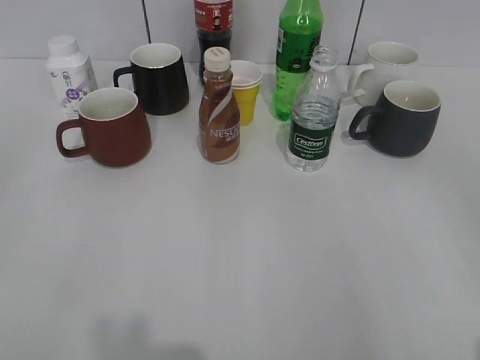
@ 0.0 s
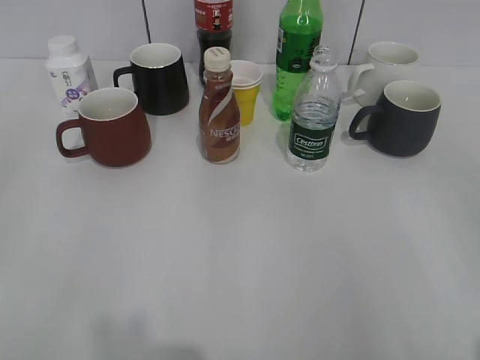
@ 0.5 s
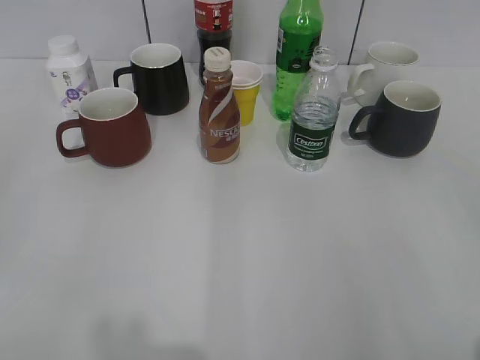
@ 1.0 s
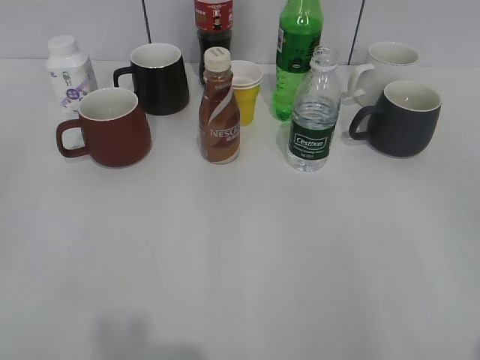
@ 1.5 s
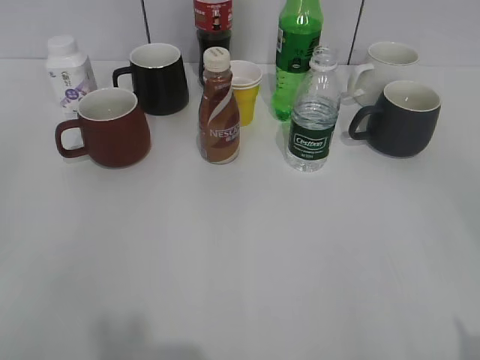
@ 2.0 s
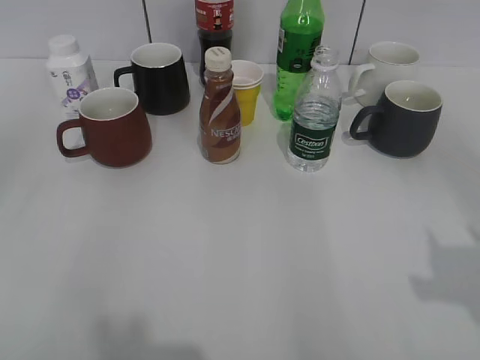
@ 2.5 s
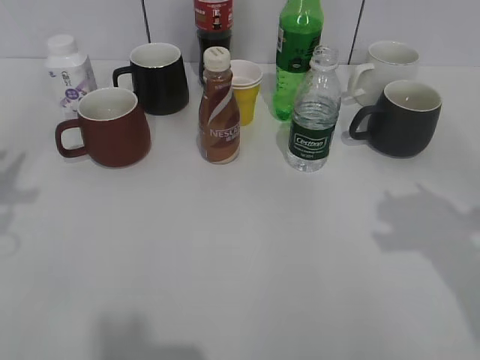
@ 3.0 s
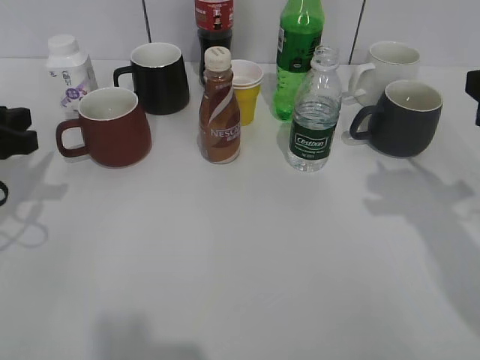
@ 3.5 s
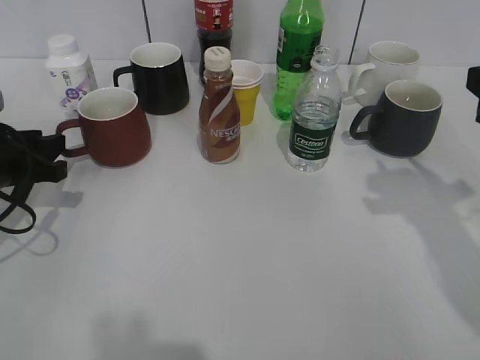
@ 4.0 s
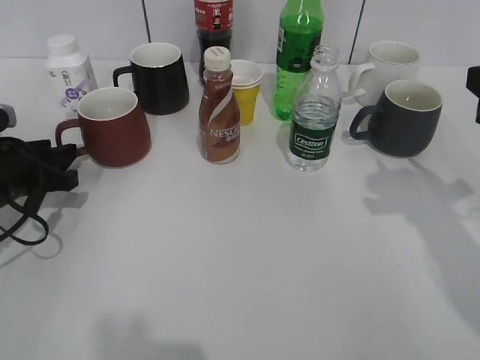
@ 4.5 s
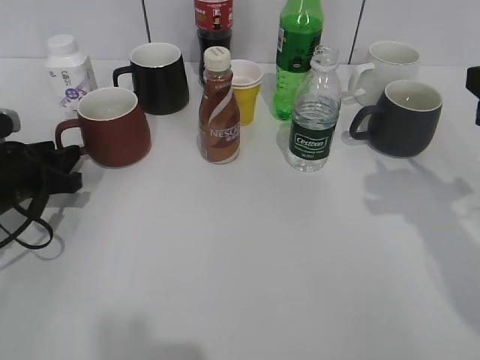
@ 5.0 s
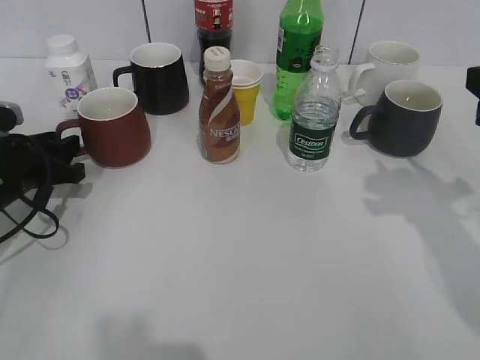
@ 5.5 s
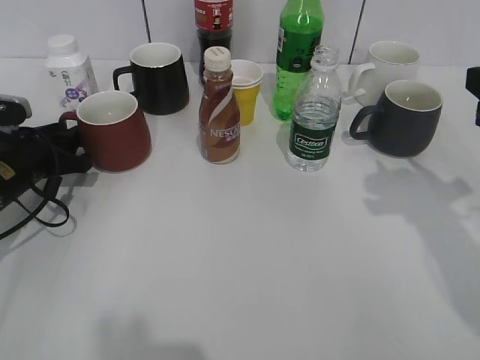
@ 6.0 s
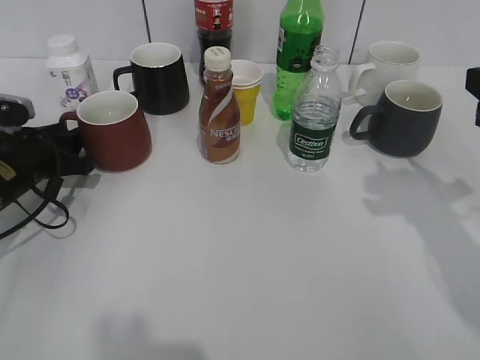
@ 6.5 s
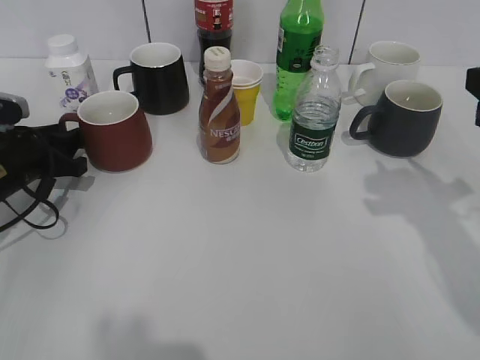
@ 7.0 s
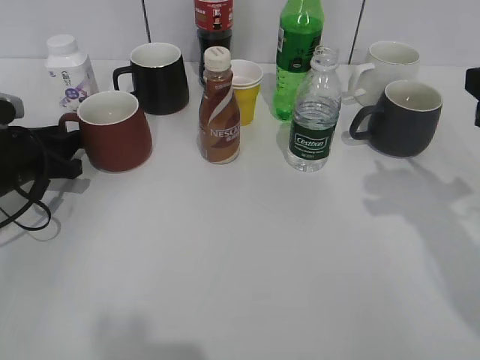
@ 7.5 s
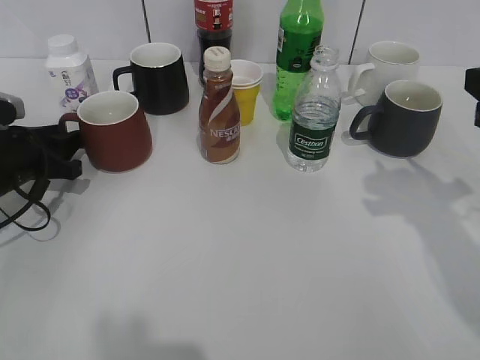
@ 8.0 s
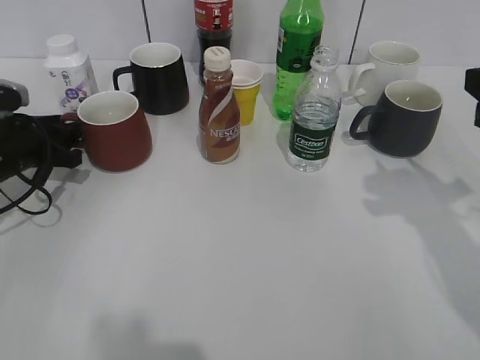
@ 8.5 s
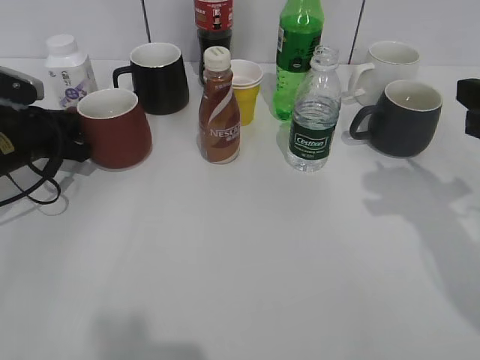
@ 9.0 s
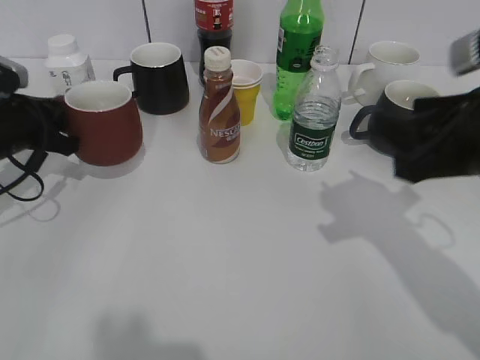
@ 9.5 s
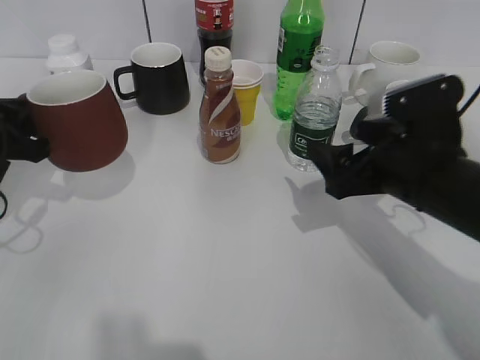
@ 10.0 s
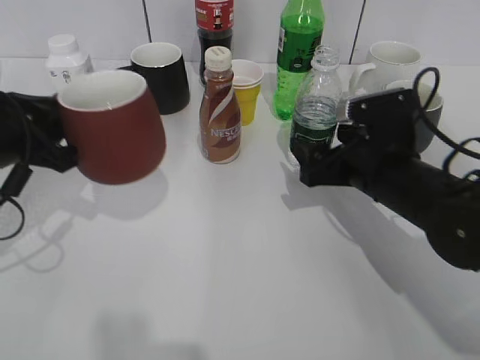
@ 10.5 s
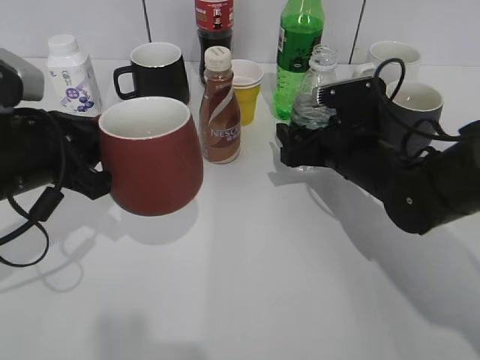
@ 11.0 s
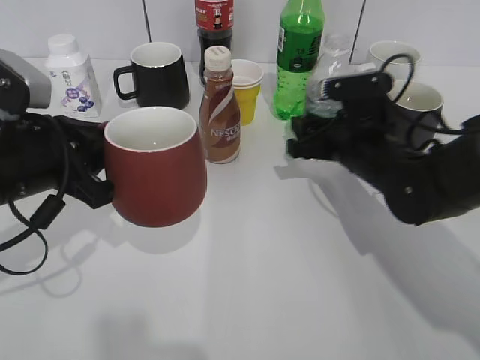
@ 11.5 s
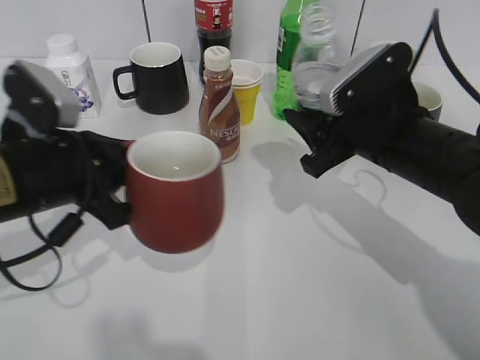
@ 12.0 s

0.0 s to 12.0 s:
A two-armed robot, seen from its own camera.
Step, 2.0 to 9.0 s: Grasp the red cup with left gripper.
Step, 9.5 to 10.0 s: Lift the red cup with left gripper.
Step, 10.5 to 11.0 s: Grasp the bottle with water with right gripper.
2.0 to 4.0 s: The right gripper moves forward, some 20 cm, and closes its fingers, while the left gripper is displaced forward and downward by about 30 cm.
4.0 to 6.0 s: The left gripper shifts by approximately 5 cm.
6.0 to 8.0 s: The grippers make only small movements.
8.0 to 10.0 s: The left gripper shifts approximately 5 cm upward, and closes. The right gripper moves downward and to the left, approximately 15 cm, and opens up.
10.0 to 12.0 s: The right gripper closes up. Meanwhile the left gripper heads to the right, covering about 10 cm.

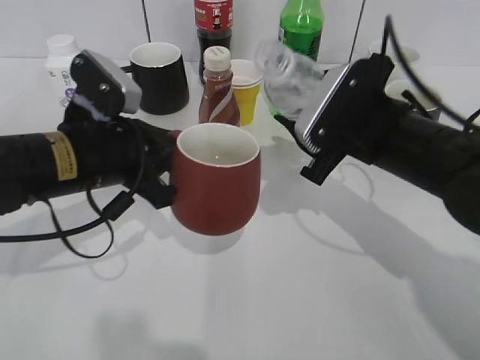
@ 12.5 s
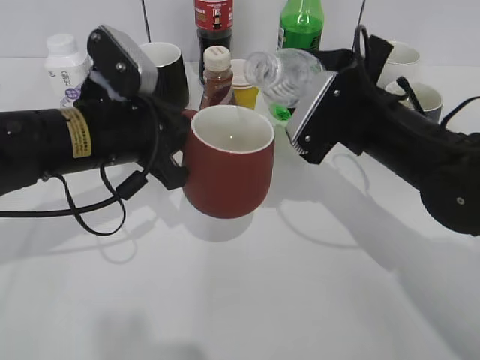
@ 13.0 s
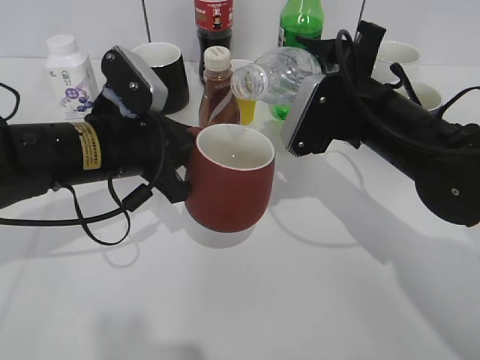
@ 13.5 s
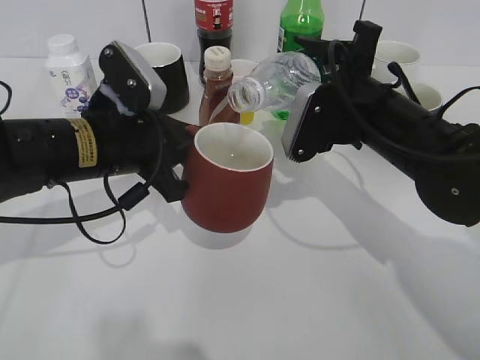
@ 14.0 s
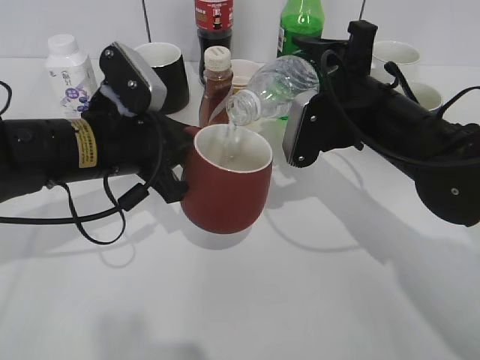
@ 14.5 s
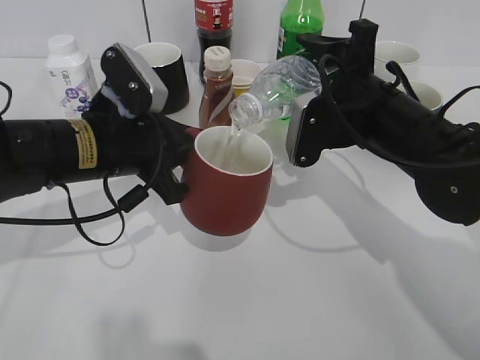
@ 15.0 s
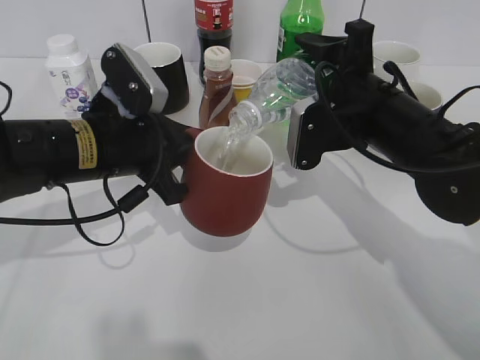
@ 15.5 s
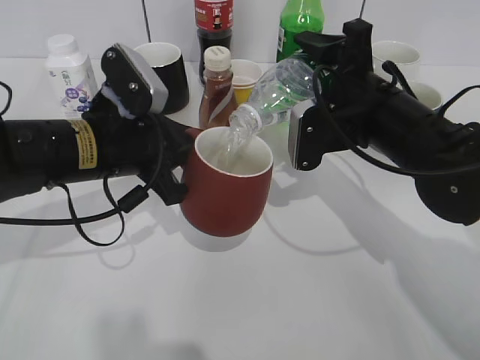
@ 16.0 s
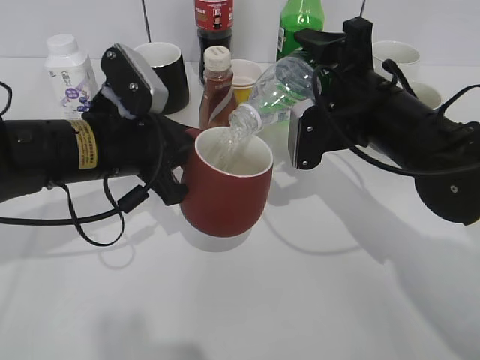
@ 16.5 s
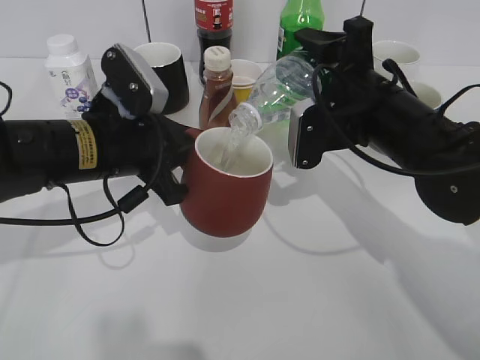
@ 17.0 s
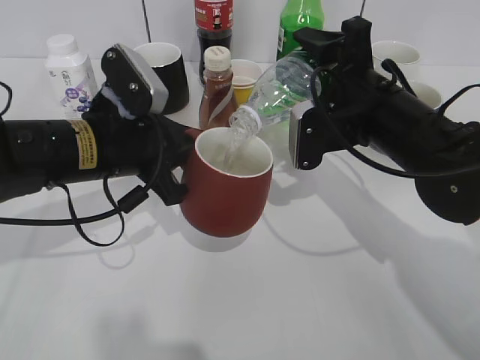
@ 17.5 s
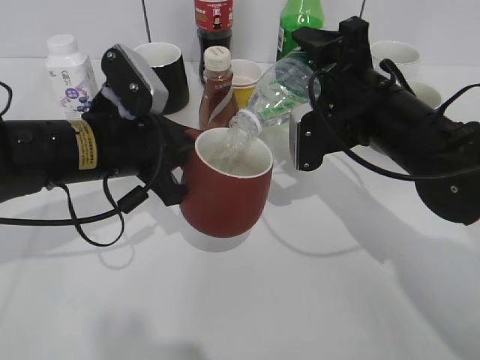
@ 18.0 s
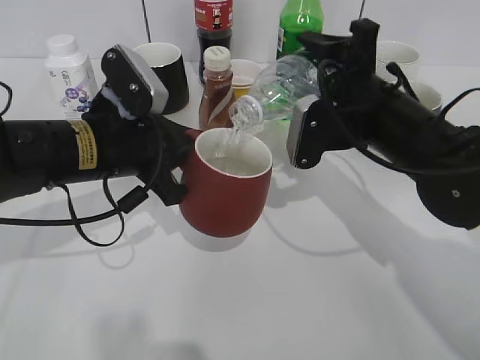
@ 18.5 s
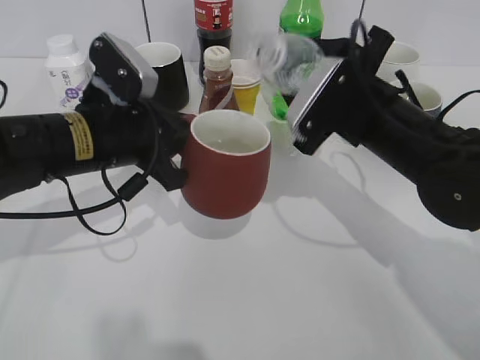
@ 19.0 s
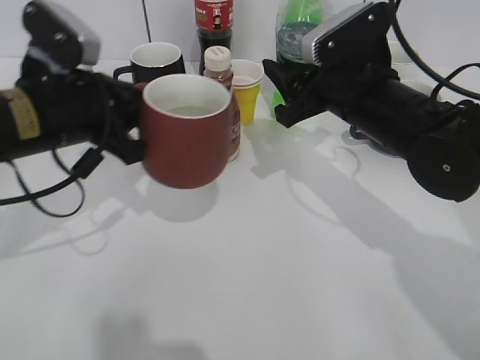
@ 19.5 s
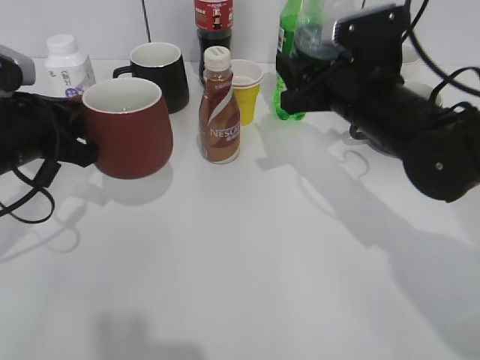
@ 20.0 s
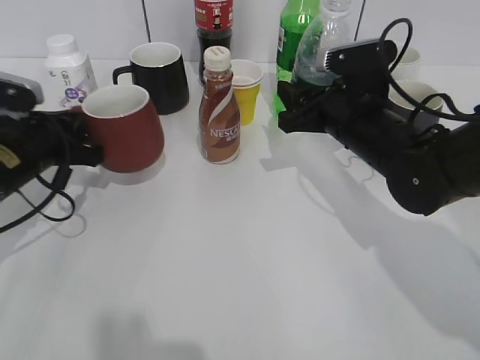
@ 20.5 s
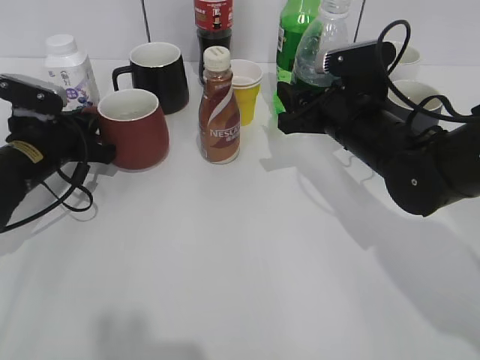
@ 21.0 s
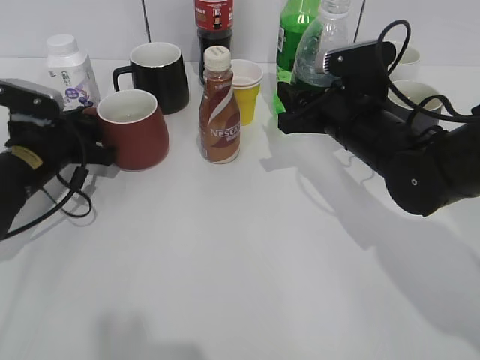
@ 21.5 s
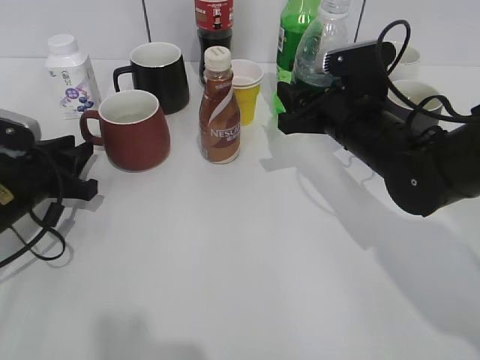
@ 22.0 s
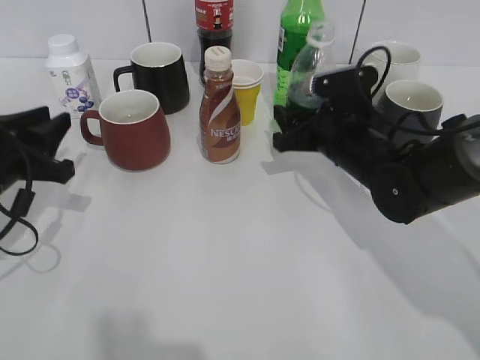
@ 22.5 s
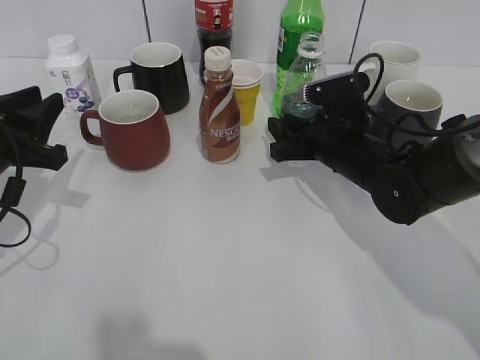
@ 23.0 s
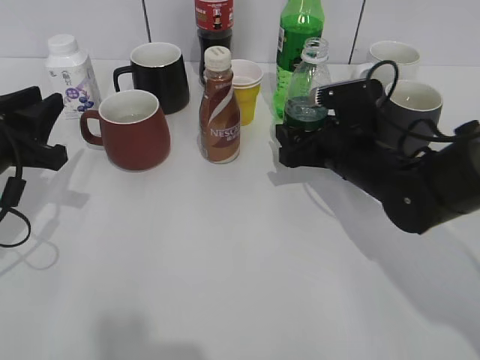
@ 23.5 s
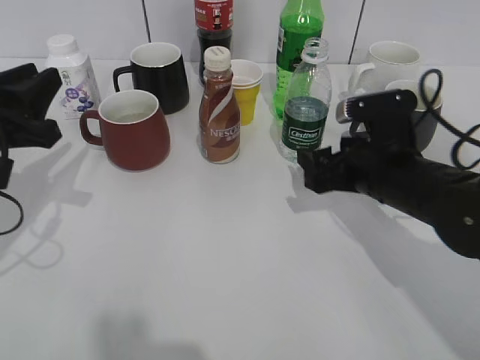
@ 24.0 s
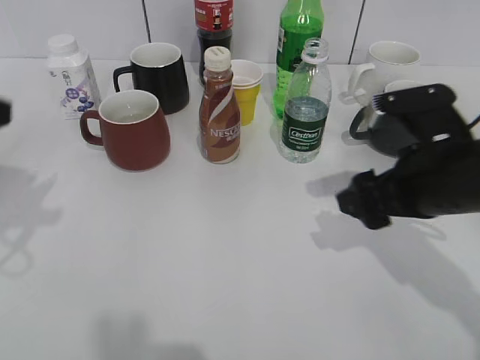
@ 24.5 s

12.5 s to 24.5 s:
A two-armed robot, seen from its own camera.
Step, 12.5 to 18.5 s: Pour the water from bottle to cup with right gripper.
Step, 19.0 to 21.5 s: Place the red cup on the table with left gripper.
Step, 22.0 to 23.5 s: Place the water bottle on the table with right gripper.
14.5 to 18.5 s: There are only small adjustments of the grippers.
18.5 to 20.5 s: The left gripper is displaced to the left by some 10 cm.
20.5 to 22.5 s: The left gripper goes about 5 cm backward, and opens up.
22.5 to 24.5 s: The right gripper is displaced backward and upward by roughly 15 cm, and opens up. Meanwhile the left gripper travels upward and backward by some 15 cm.

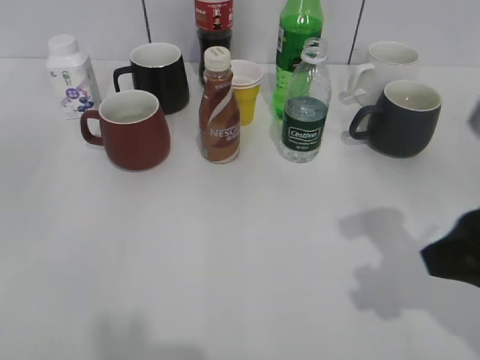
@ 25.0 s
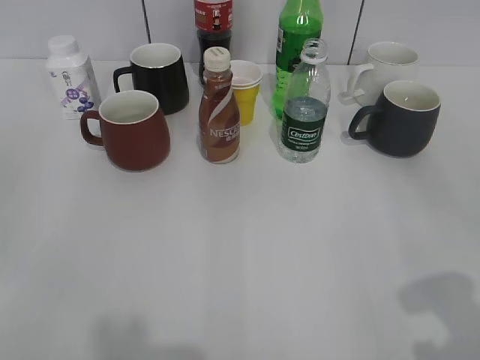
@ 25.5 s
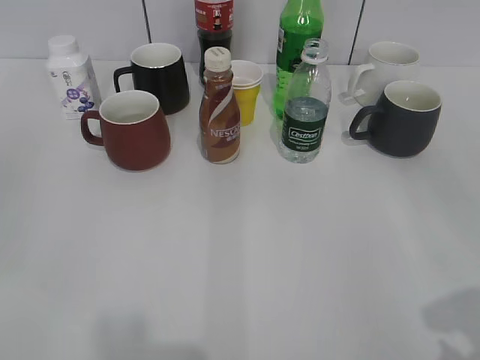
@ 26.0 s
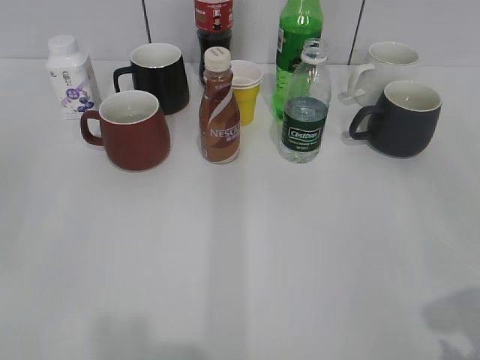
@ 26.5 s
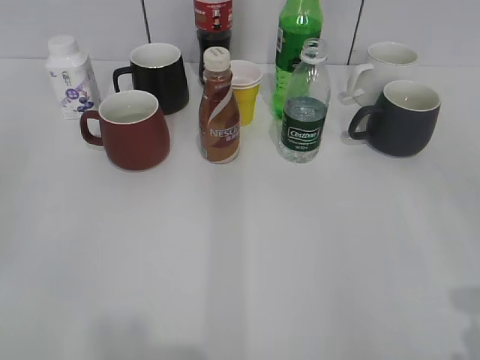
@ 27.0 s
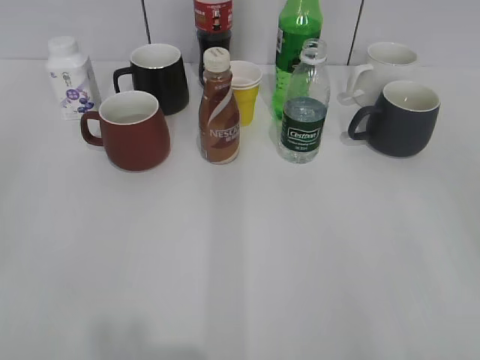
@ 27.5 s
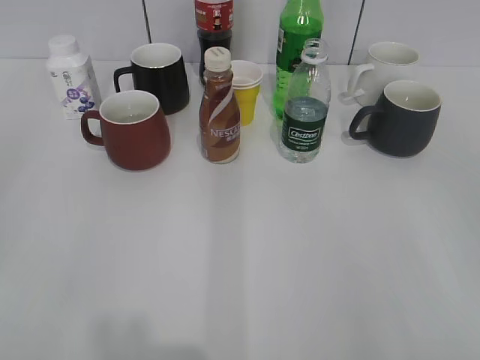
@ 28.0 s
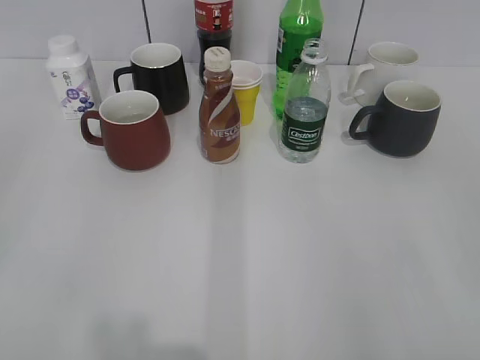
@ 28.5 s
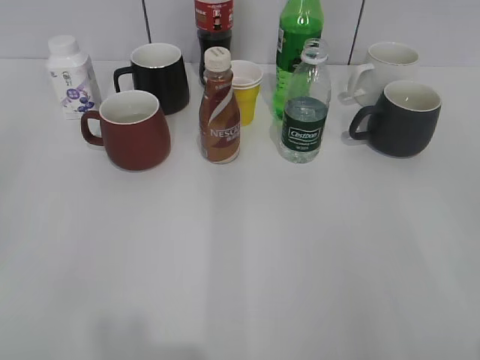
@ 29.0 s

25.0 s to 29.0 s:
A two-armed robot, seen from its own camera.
25.0 to 27.0 s: The right gripper travels backward and to the right by roughly 15 cm.
